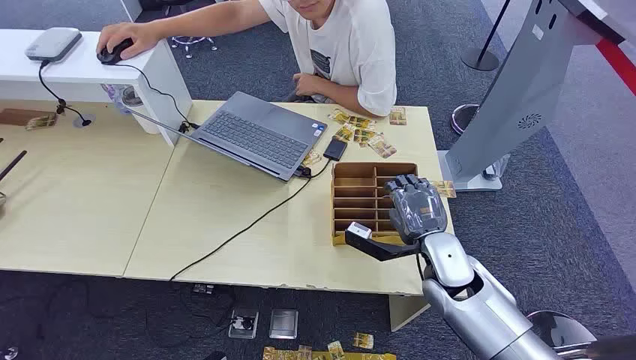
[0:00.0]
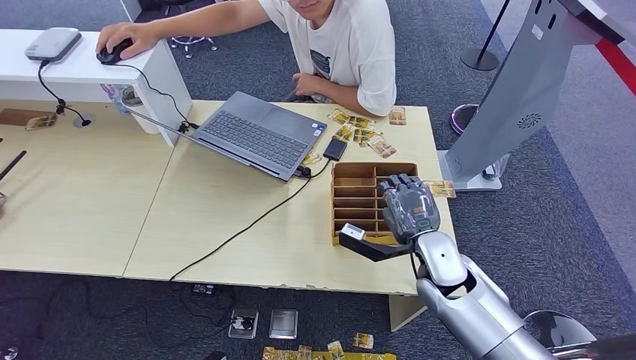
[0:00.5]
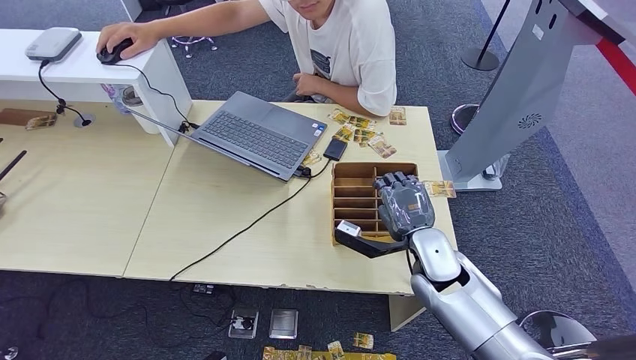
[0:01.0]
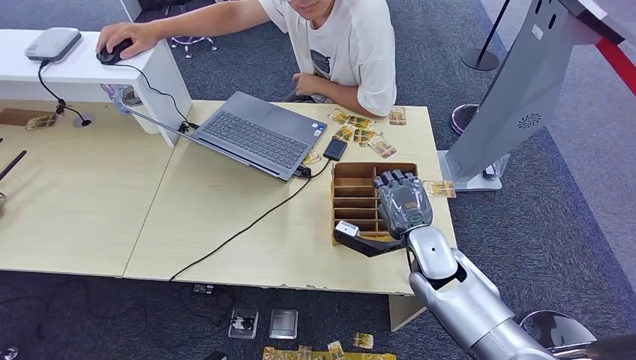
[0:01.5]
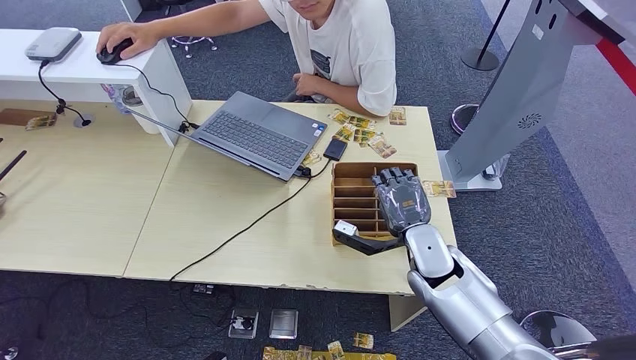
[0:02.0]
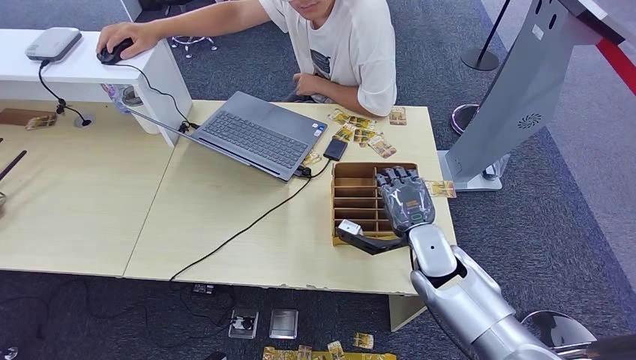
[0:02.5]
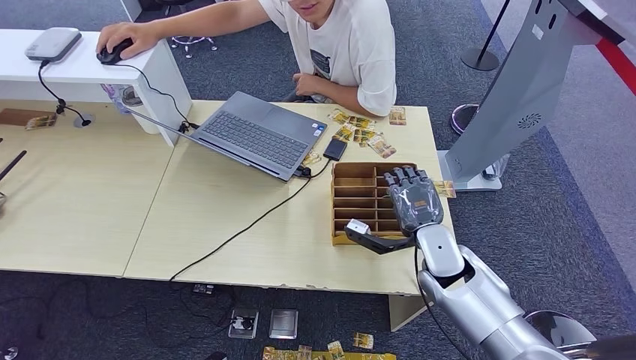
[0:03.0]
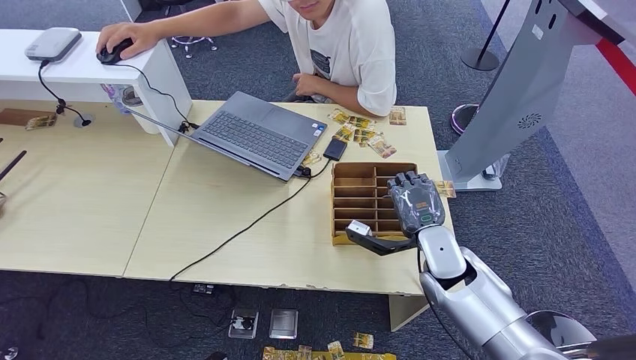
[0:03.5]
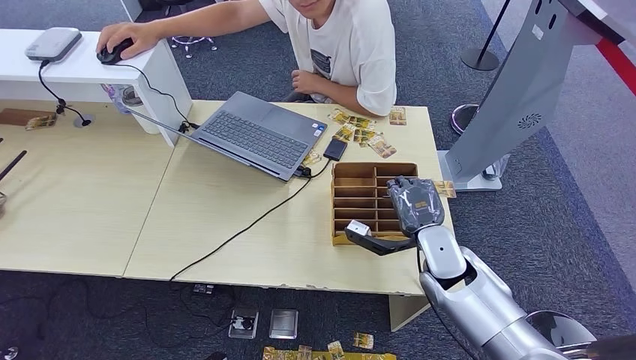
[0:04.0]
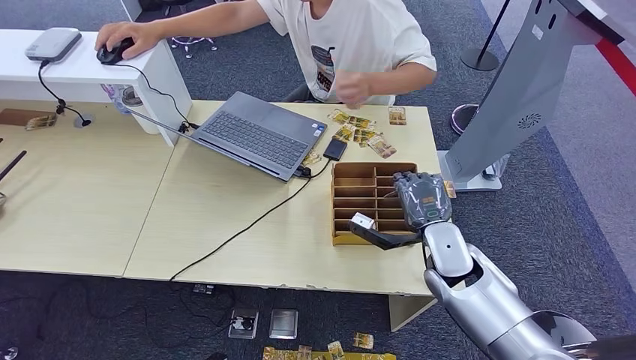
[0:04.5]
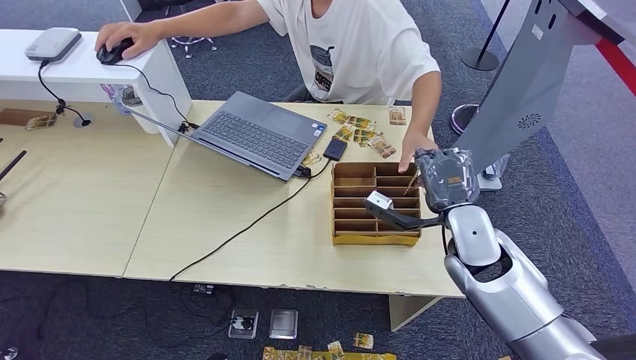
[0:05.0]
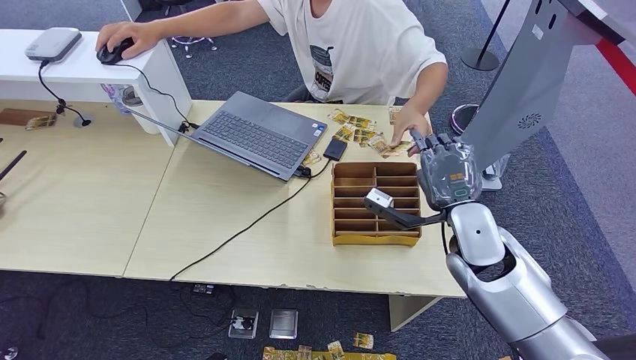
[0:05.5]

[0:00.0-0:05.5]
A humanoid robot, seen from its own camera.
Step, 0:00.0 to 0:04.5: Pick up the room card from the card holder.
Step, 0:05.0 to 0:05.5: Hand the room card to the target.
0:02.0 to 0:03.5: The hands make only small movements.
0:03.5 to 0:05.5: The right hand heads upward, covering about 10 cm.

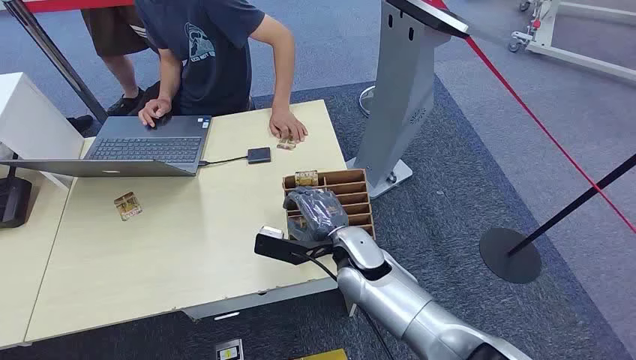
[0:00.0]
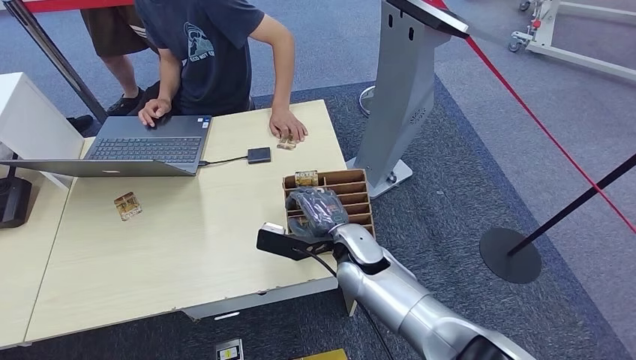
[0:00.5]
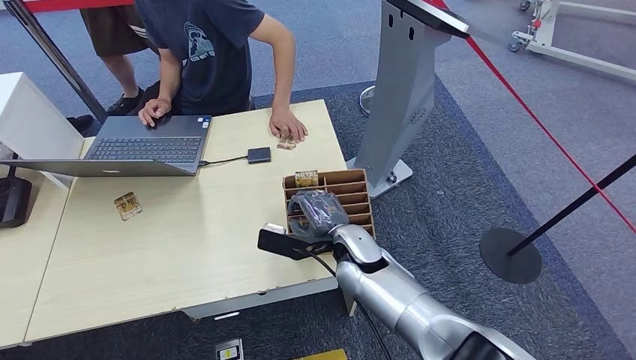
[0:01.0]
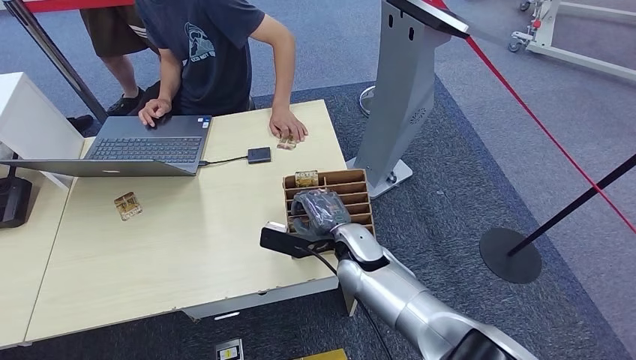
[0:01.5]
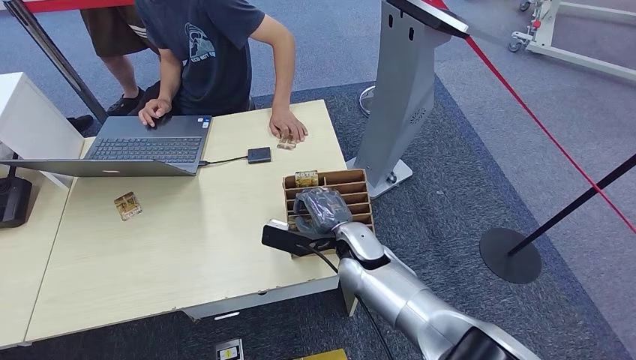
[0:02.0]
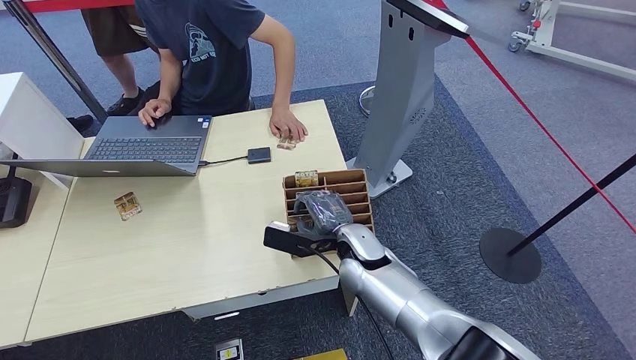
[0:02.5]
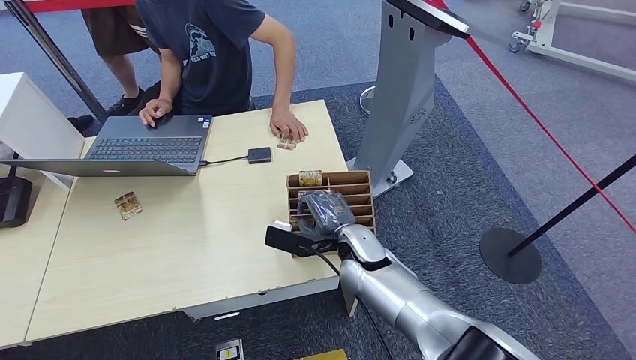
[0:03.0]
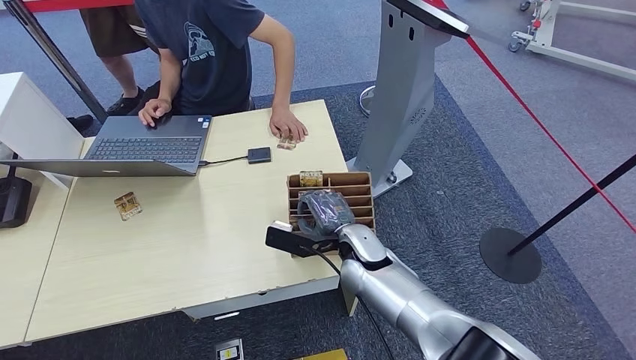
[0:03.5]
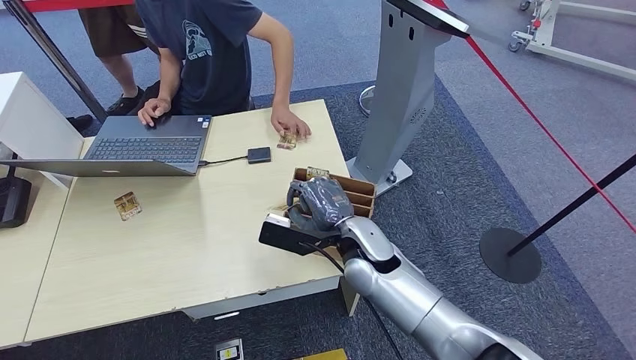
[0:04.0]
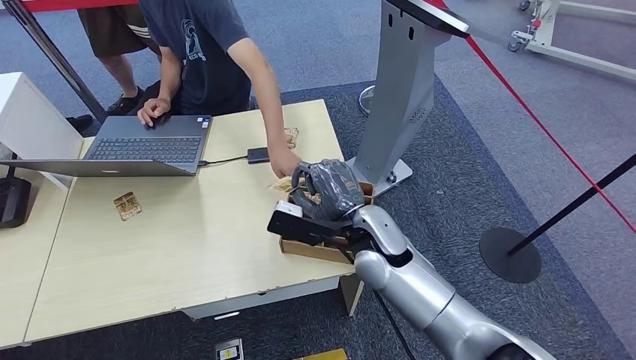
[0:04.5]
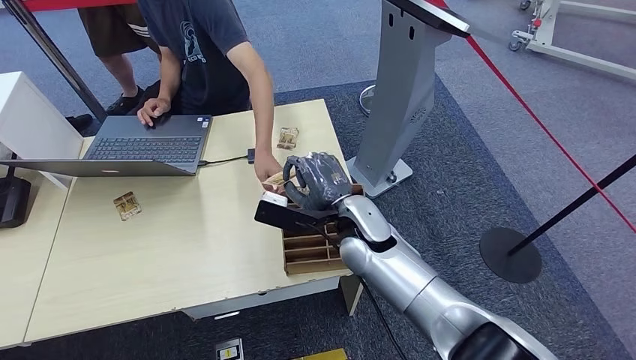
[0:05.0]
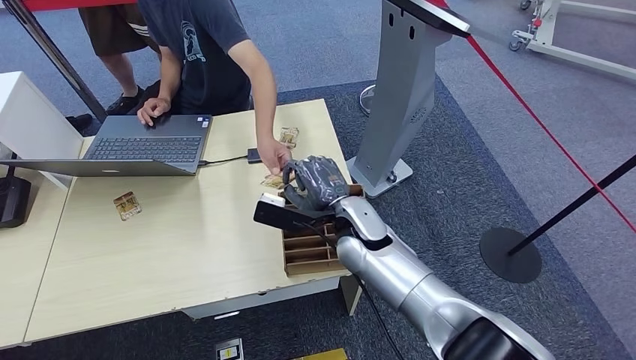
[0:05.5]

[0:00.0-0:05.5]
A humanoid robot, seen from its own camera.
Step, 0:00.0 to 0:04.5: Pick up the room card from the card holder.
Step, 0:05.0 to 0:05.5: Hand the room card to the target.
0:02.0 to 0:03.5: The two hands keep their place.
0:03.5 to 0:05.5: The right hand is displaced upward by roughly 5 cm.

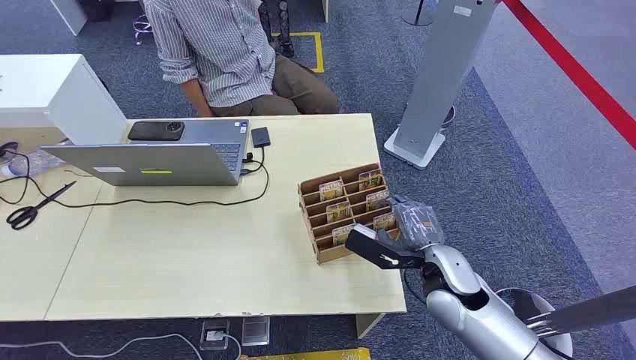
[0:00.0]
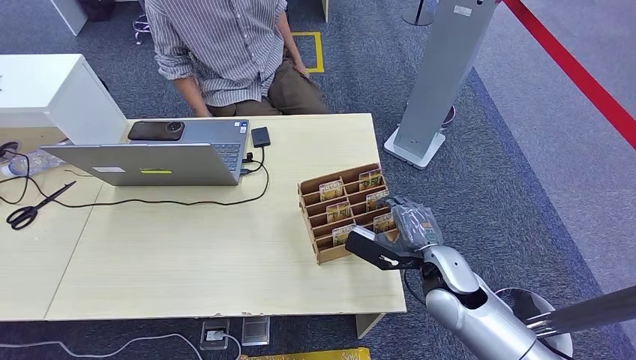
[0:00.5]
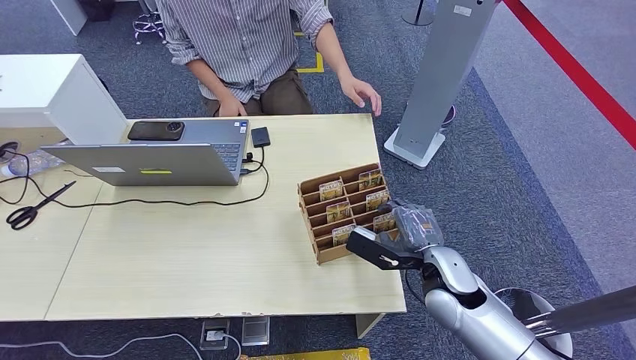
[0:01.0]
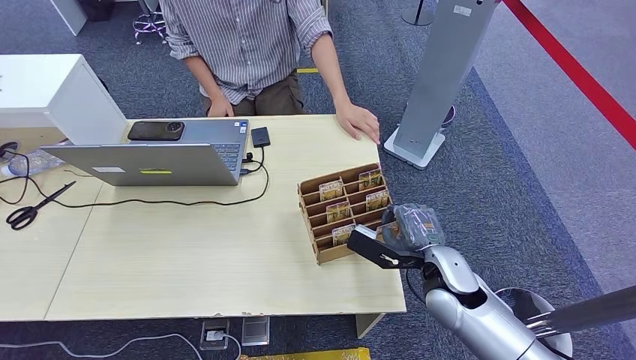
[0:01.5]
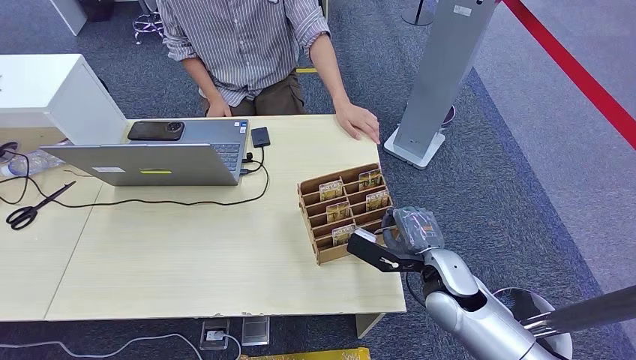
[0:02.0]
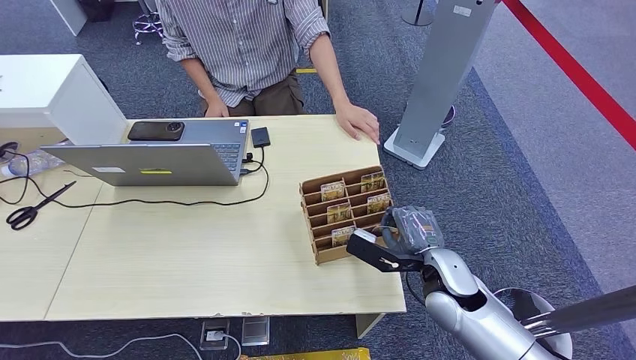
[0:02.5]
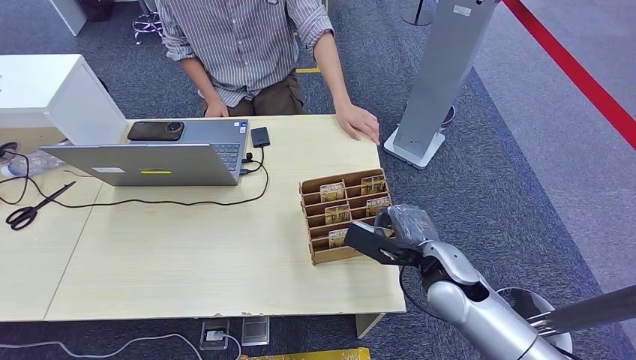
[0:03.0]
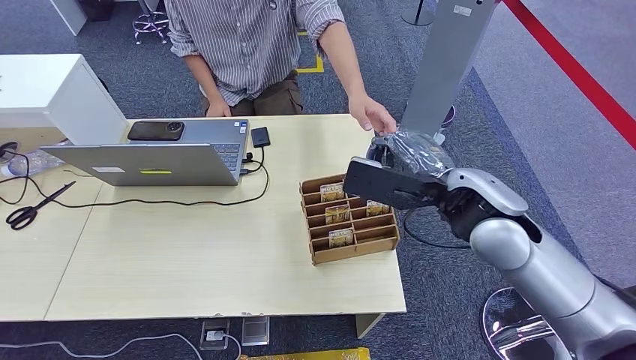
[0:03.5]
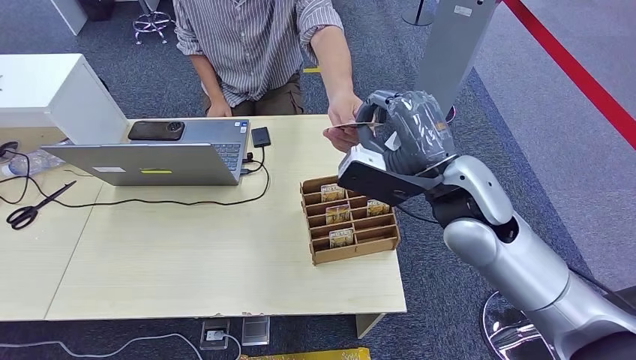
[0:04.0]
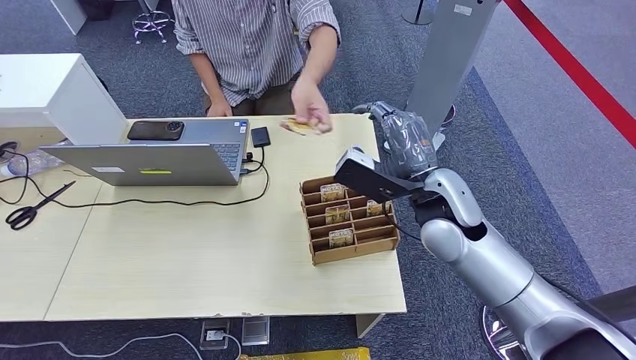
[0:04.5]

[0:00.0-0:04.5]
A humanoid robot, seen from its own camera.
Step, 0:00.0 to 0:03.0: Pick up the room card from the card holder.
Step, 0:04.0 to 0:04.5: Hand the room card to the target.
0:02.0 to 0:04.5: The right hand travels upward and forward by roughly 15 cm.
